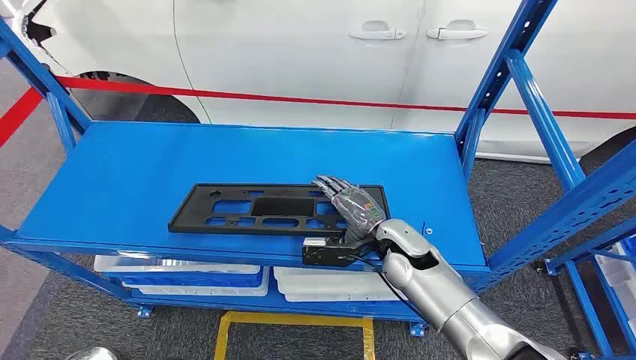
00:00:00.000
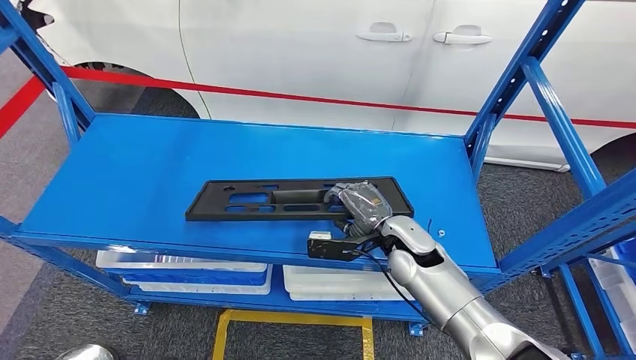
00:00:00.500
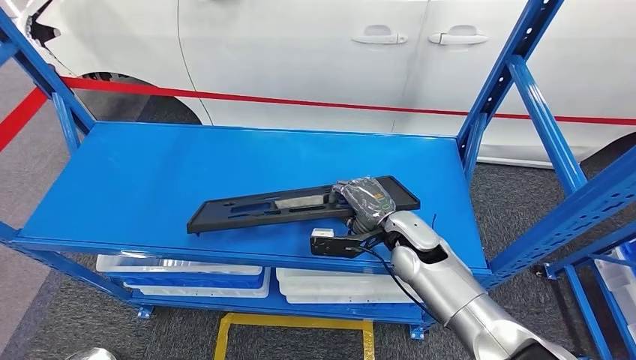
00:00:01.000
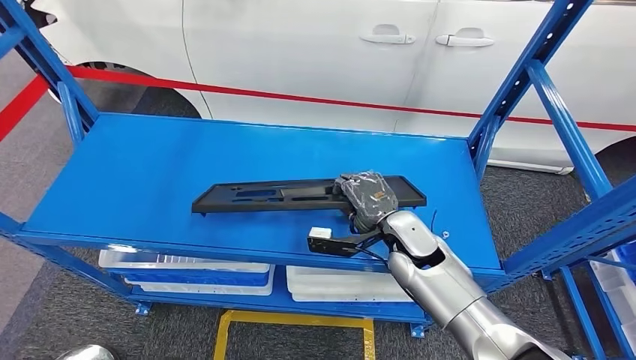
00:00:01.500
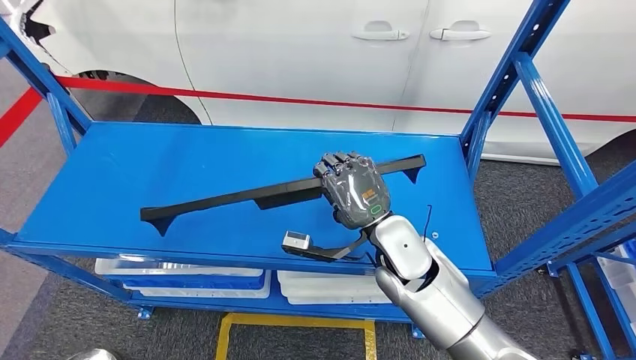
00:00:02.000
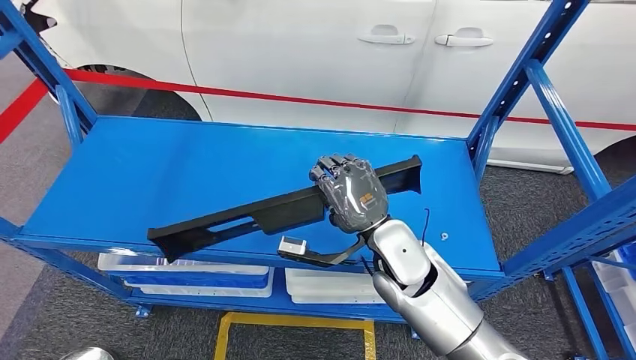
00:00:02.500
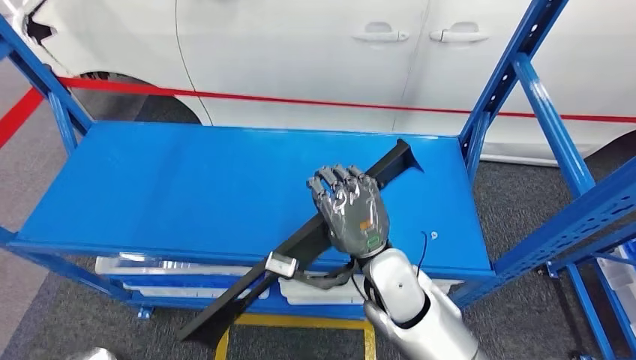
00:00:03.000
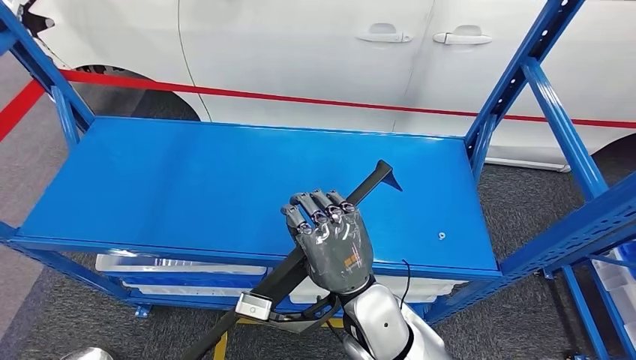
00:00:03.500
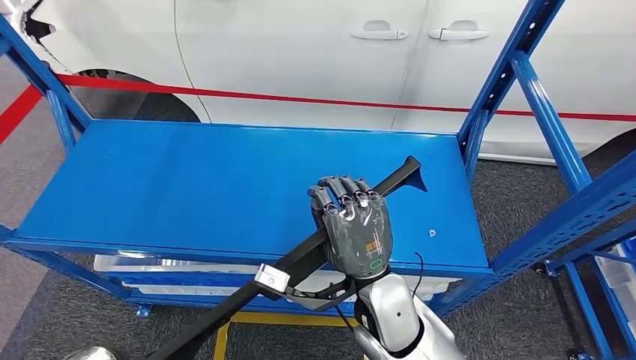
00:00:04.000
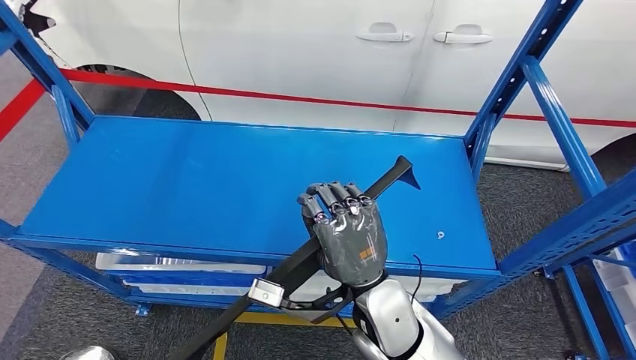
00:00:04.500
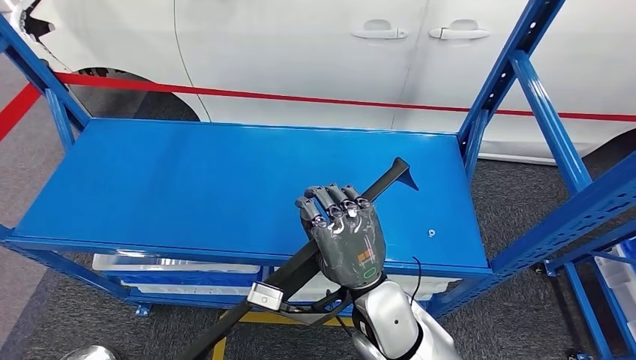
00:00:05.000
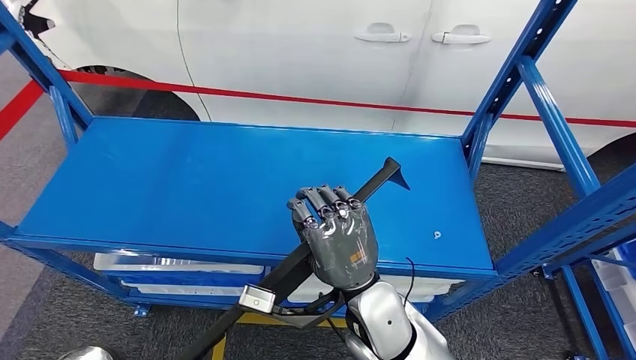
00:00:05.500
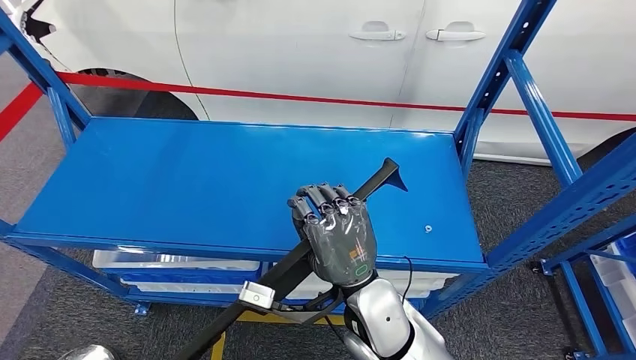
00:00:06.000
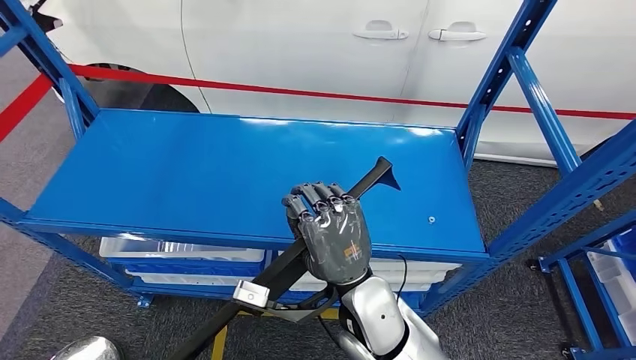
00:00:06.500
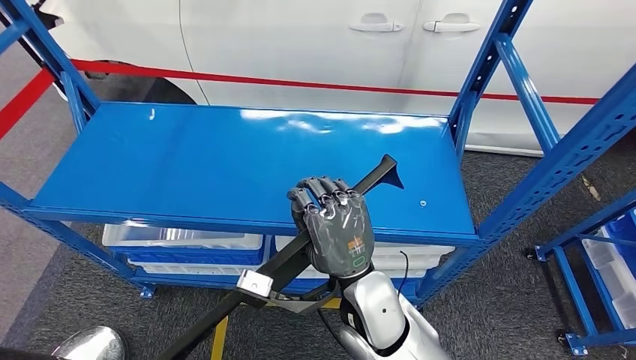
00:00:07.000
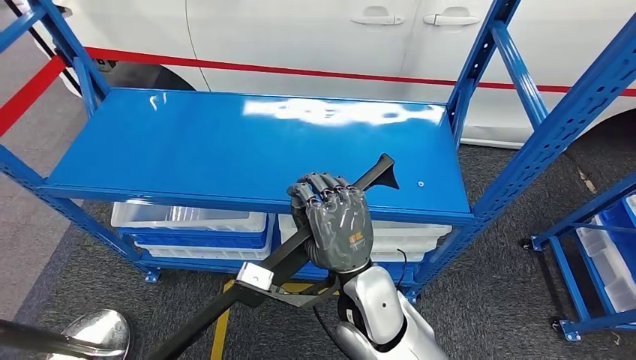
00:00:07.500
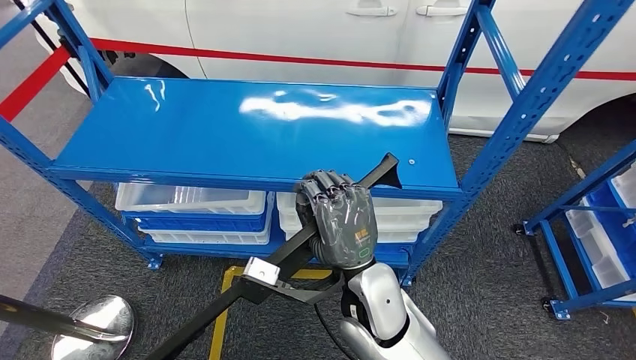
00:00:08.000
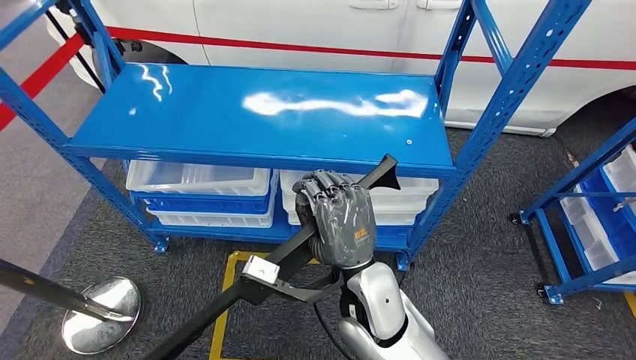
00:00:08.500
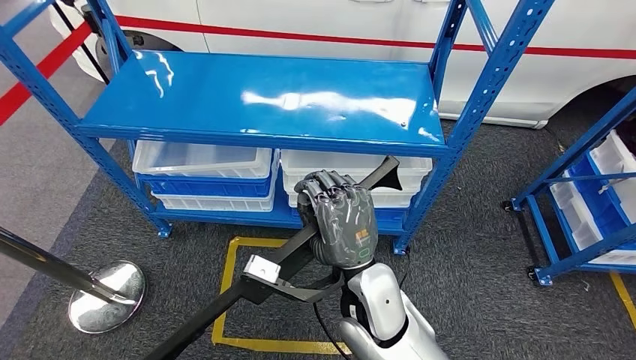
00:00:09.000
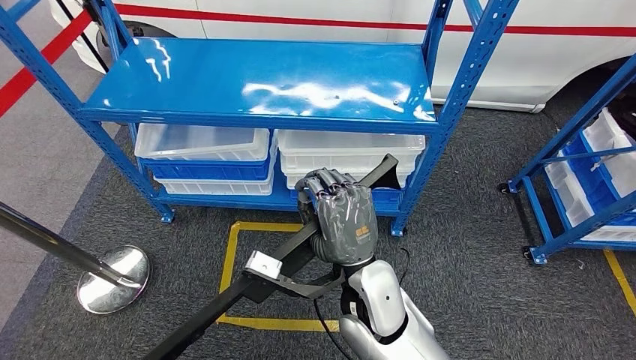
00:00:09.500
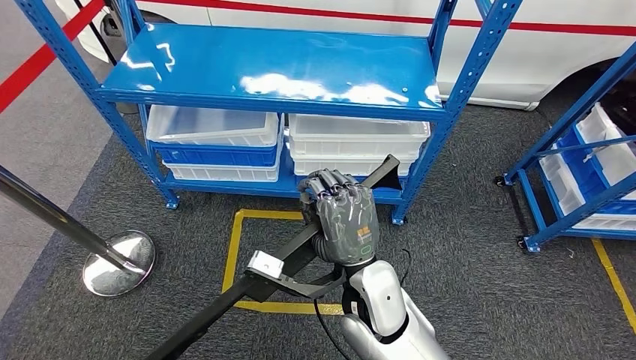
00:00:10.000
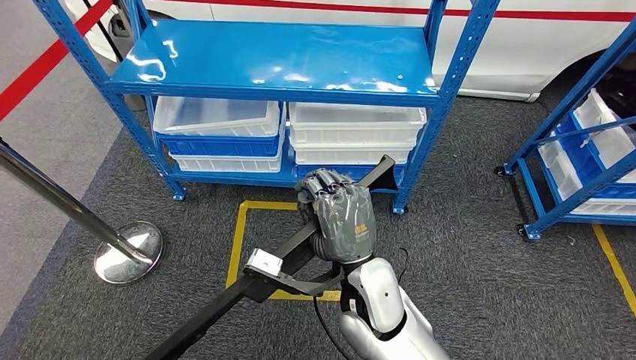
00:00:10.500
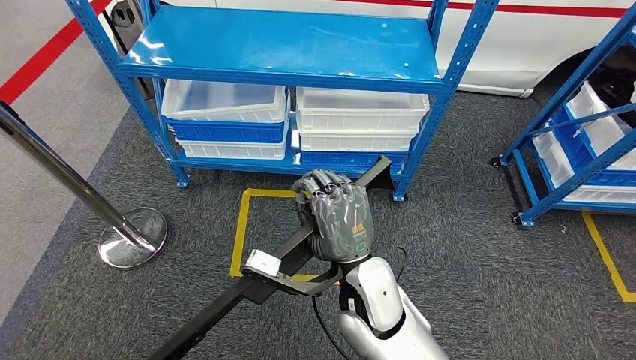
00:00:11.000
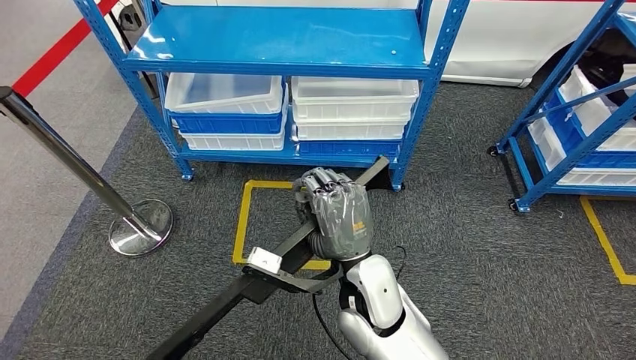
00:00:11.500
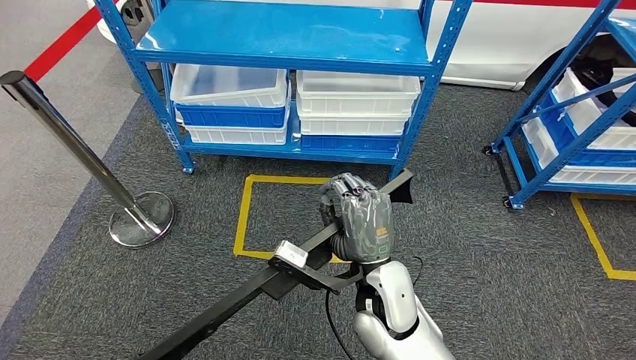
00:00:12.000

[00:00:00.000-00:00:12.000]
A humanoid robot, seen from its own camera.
Step, 00:00:00.000 to 00:00:04.000: Pick up the large material from the shelf.
00:00:04.000 to 00:00:06.000: The hands make only small movements.

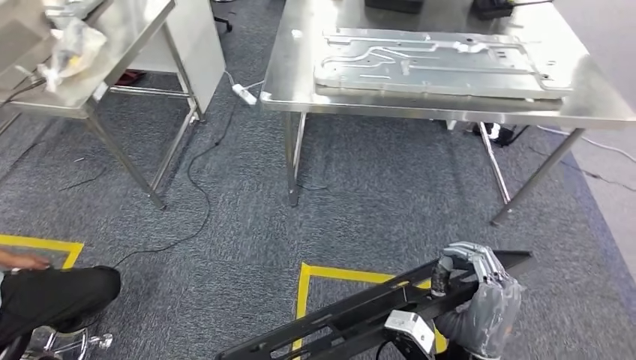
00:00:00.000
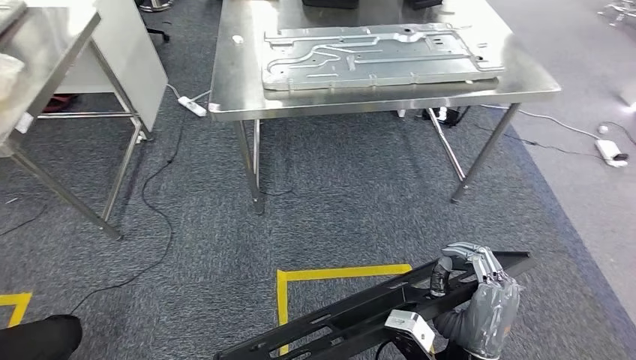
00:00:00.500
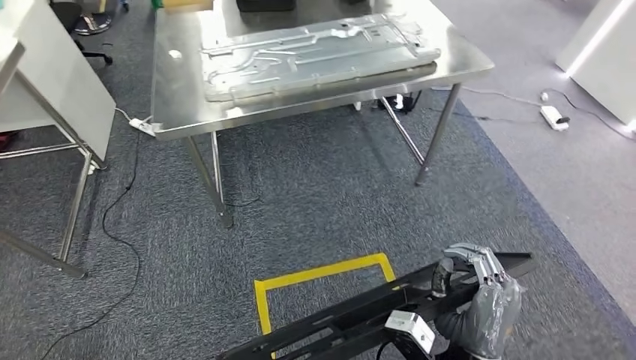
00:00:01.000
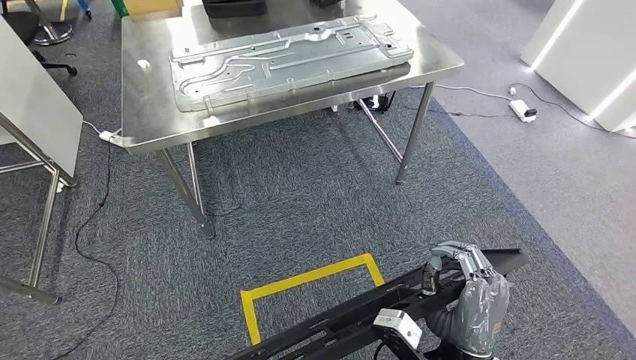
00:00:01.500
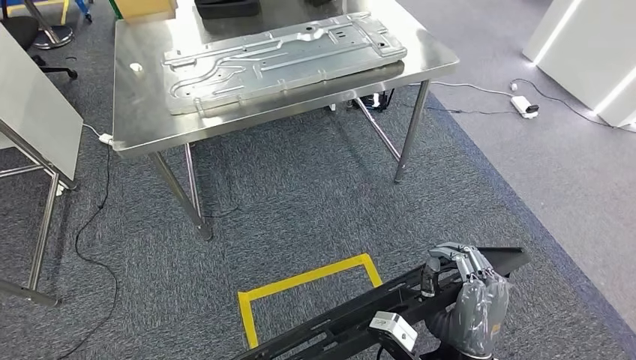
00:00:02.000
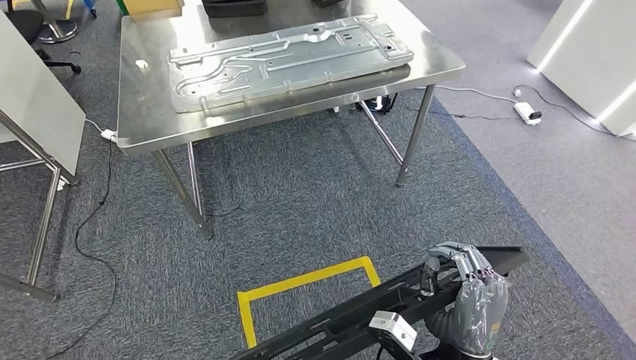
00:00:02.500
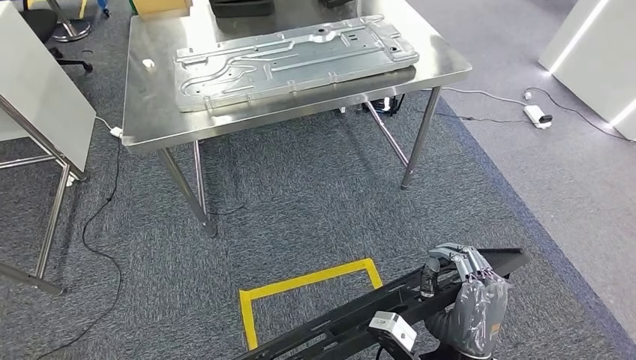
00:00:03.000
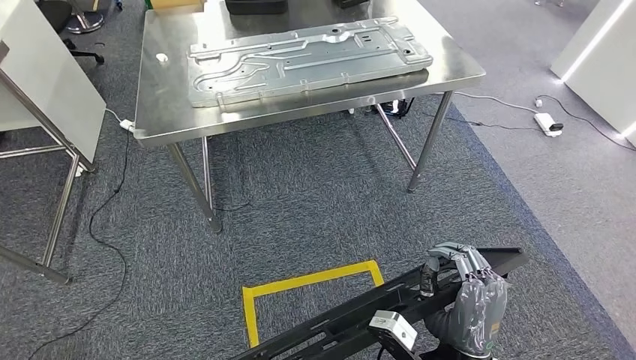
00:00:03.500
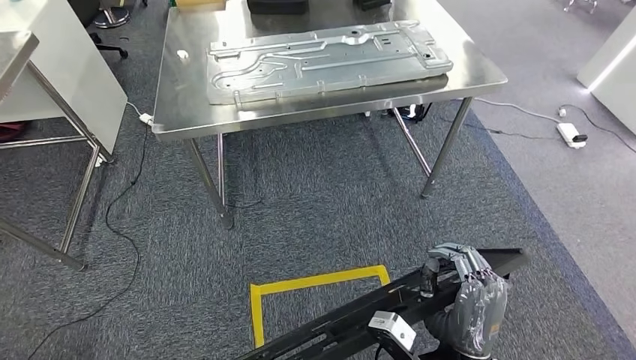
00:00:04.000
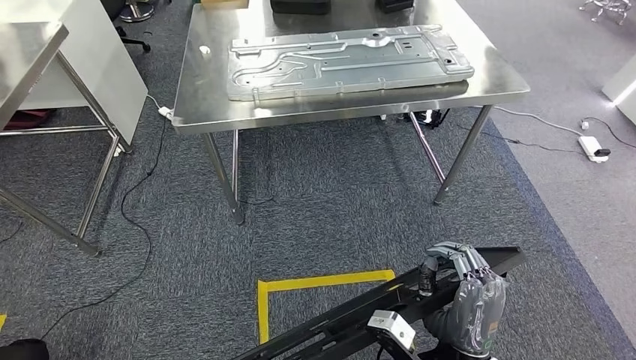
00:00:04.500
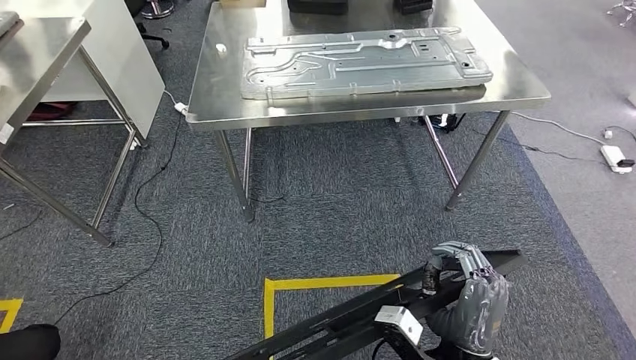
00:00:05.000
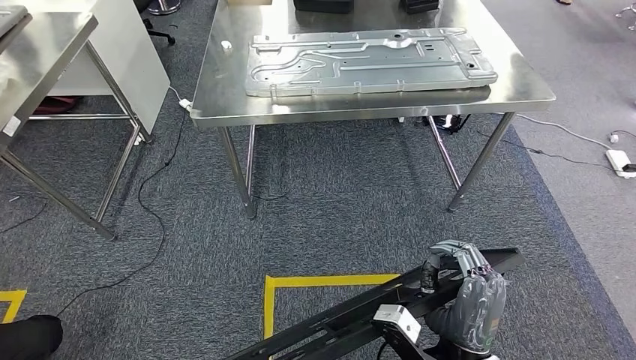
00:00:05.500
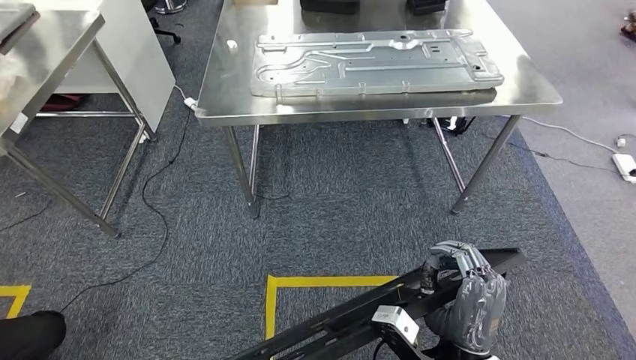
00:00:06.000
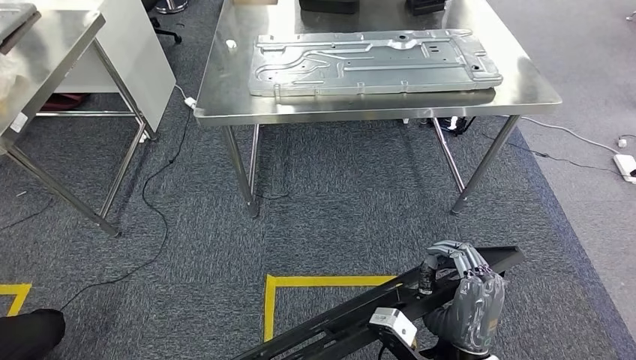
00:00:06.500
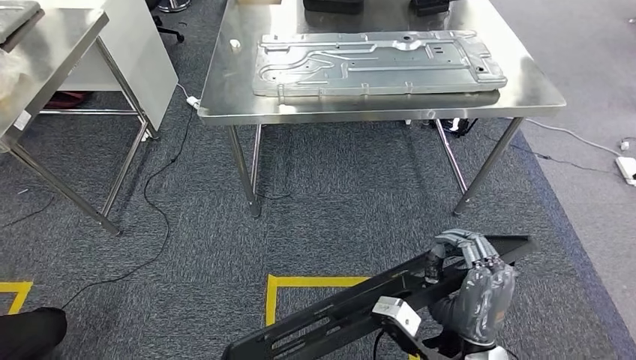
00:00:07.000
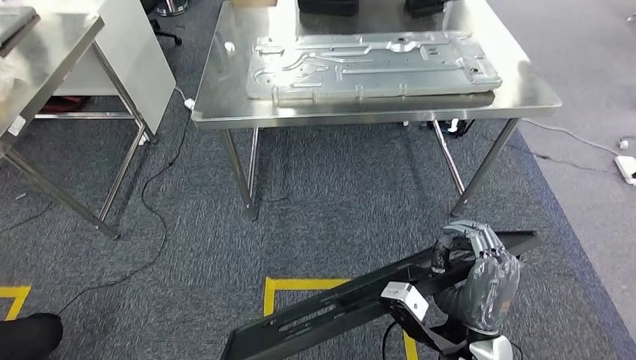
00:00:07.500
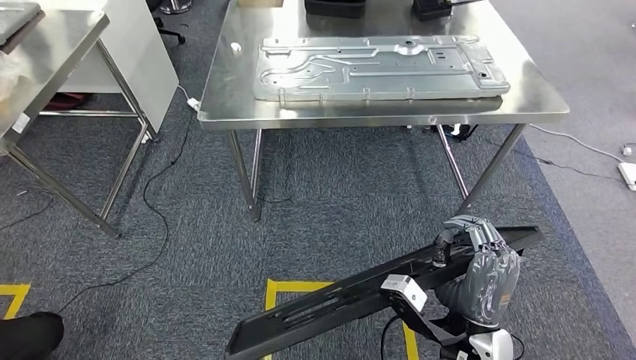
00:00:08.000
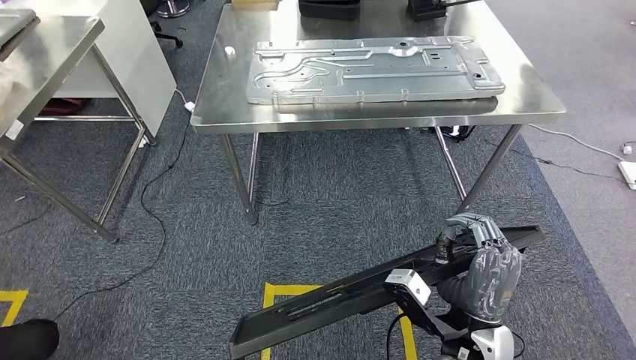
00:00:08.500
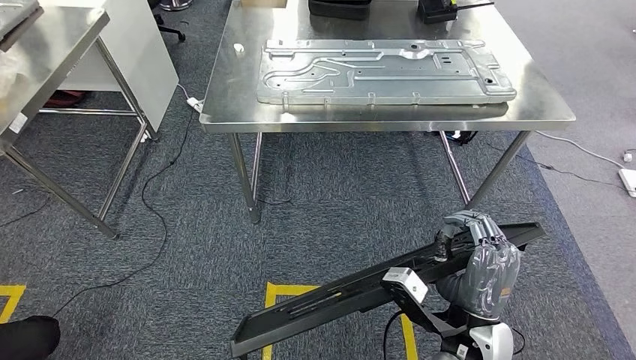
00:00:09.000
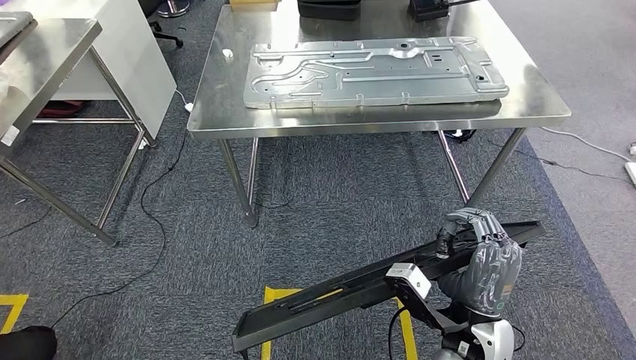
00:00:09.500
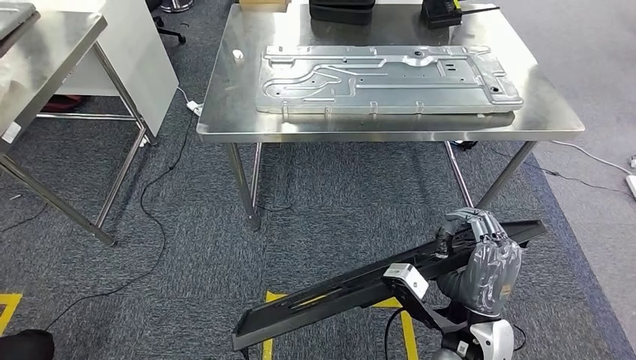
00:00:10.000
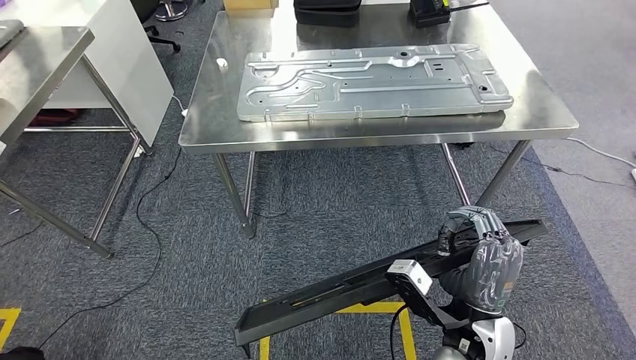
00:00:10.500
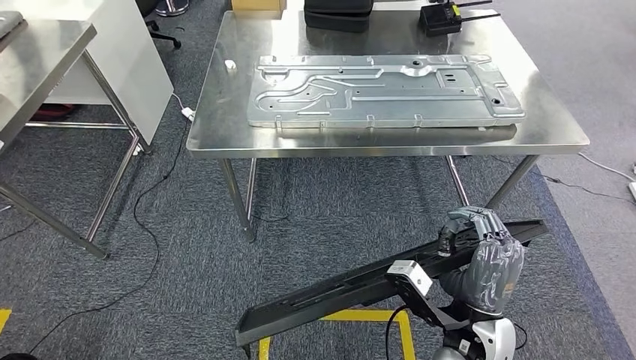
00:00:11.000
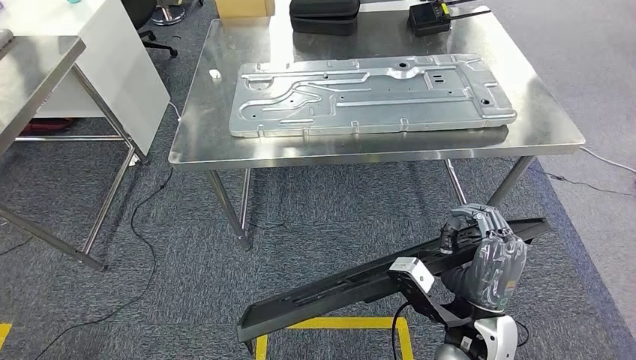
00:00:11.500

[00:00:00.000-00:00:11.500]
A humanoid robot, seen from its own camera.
00:00:06.000 to 00:00:07.500: The hands move only a little.
